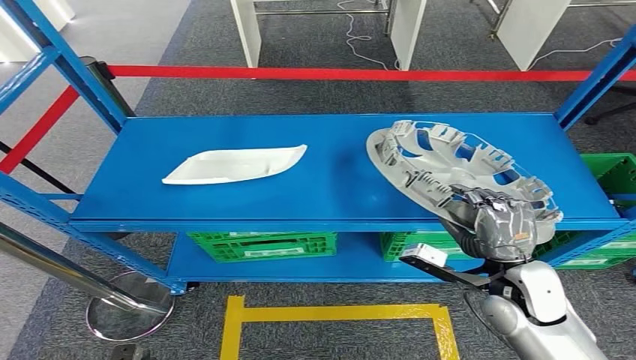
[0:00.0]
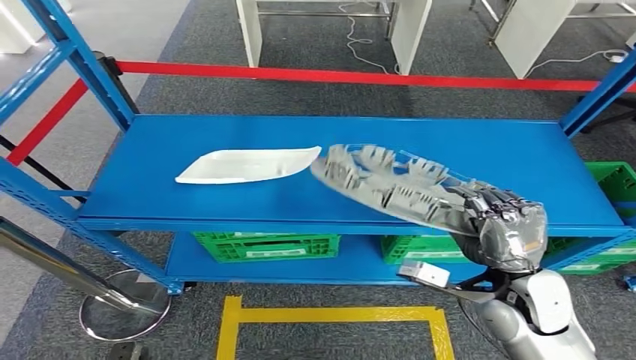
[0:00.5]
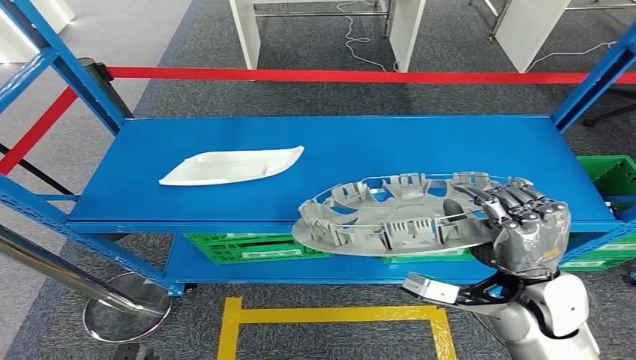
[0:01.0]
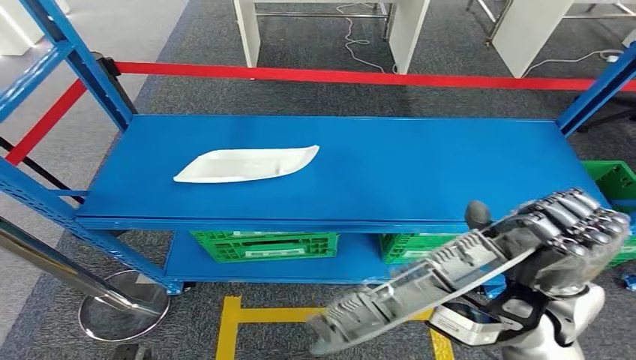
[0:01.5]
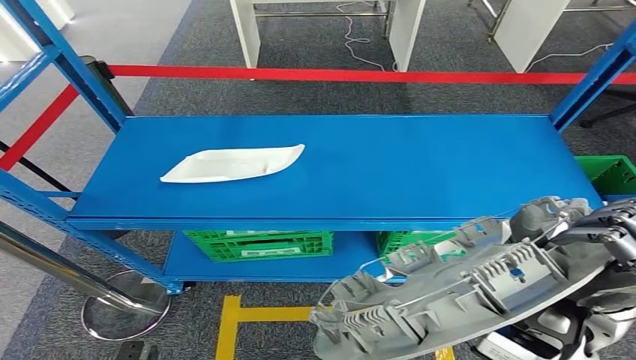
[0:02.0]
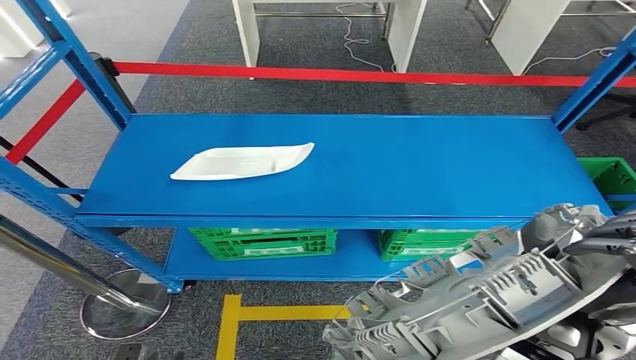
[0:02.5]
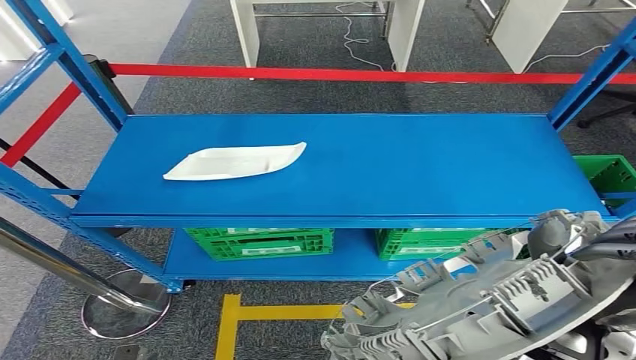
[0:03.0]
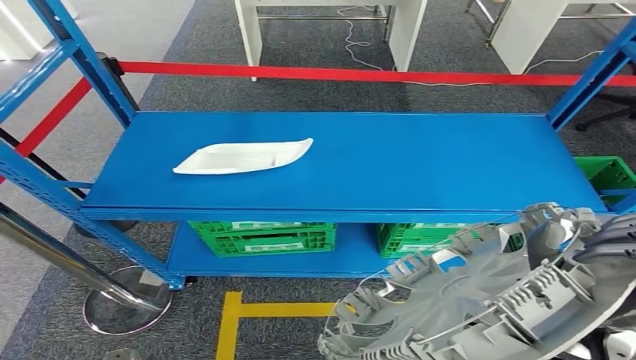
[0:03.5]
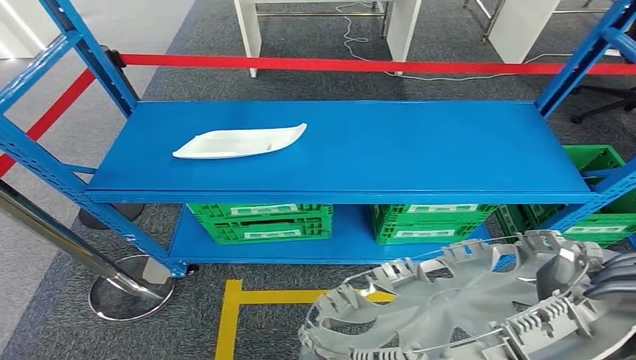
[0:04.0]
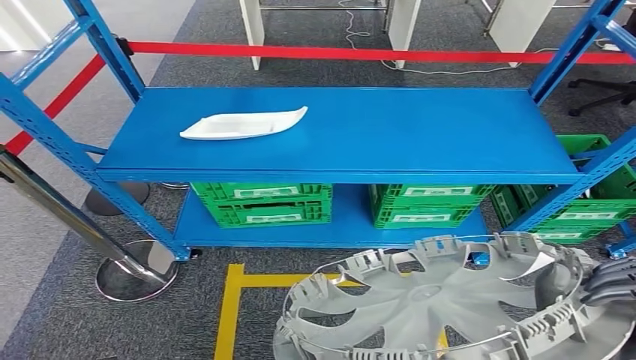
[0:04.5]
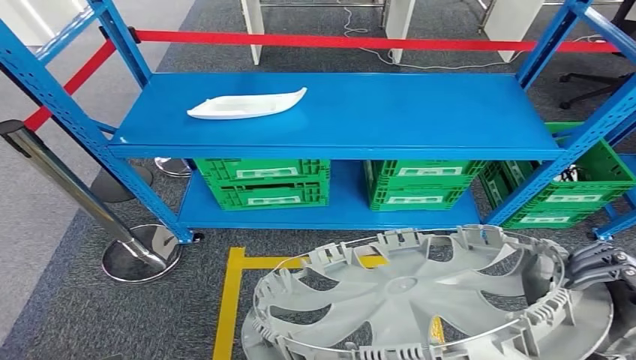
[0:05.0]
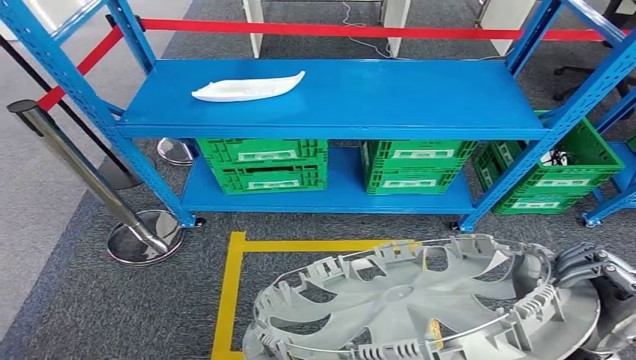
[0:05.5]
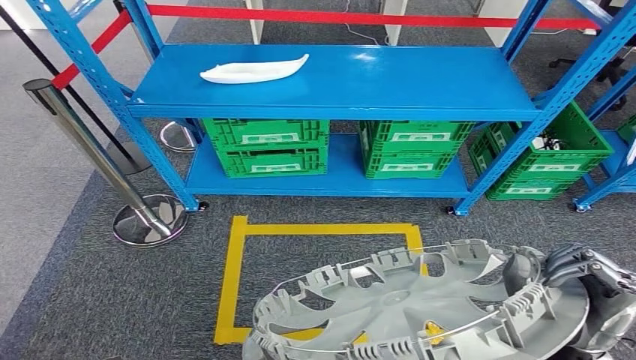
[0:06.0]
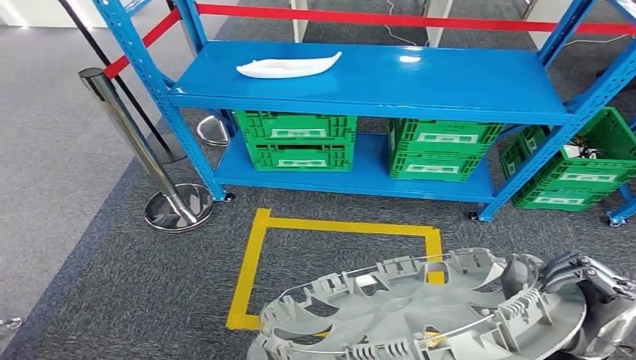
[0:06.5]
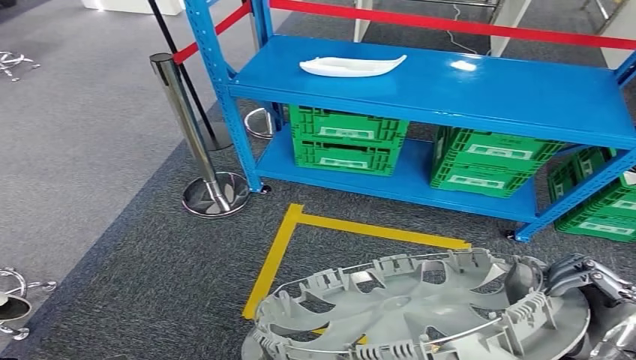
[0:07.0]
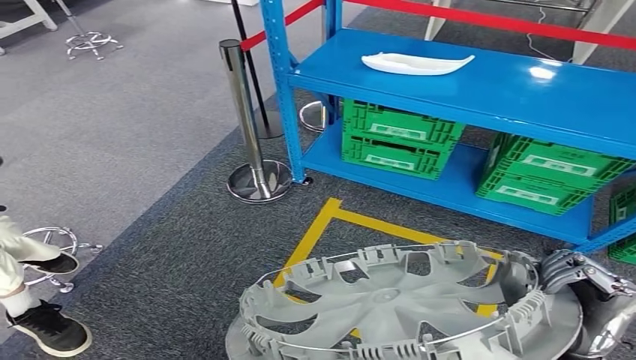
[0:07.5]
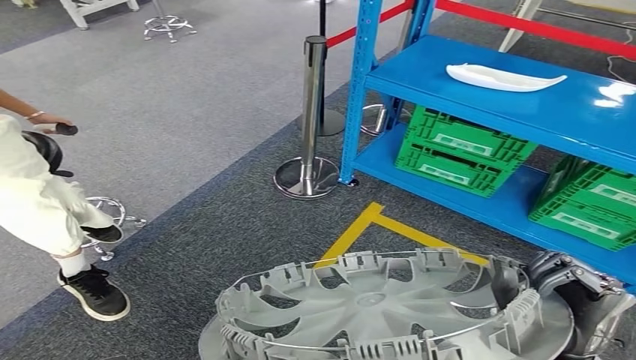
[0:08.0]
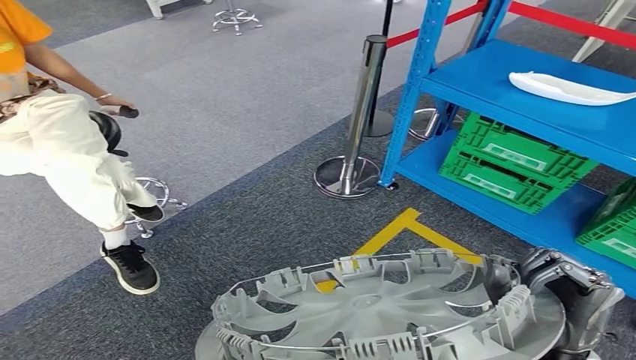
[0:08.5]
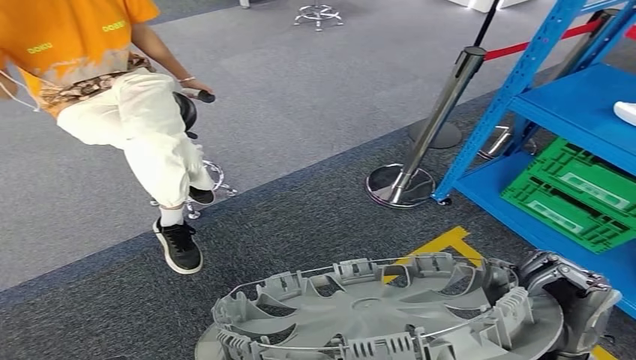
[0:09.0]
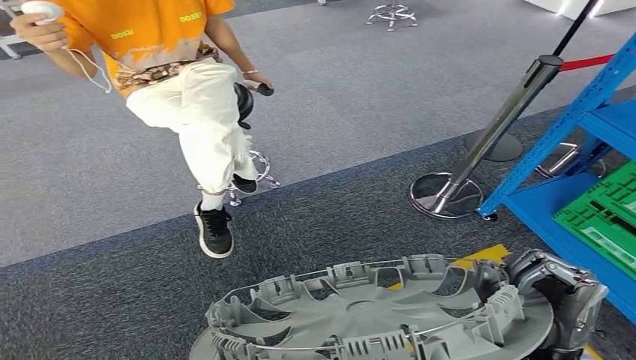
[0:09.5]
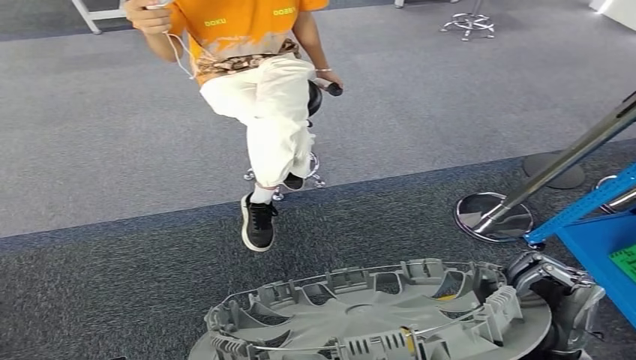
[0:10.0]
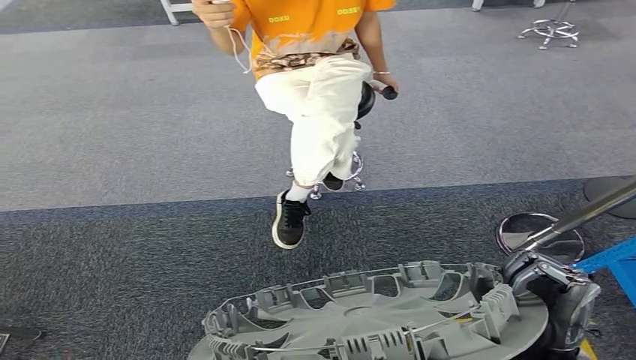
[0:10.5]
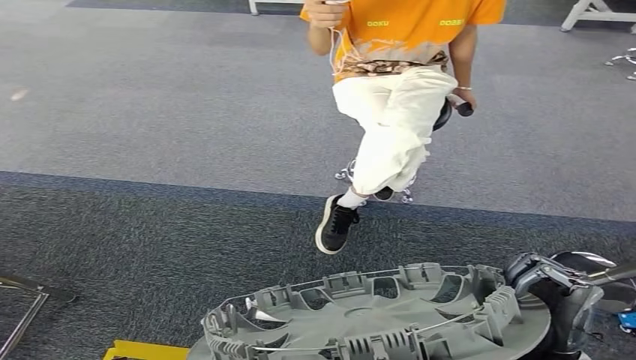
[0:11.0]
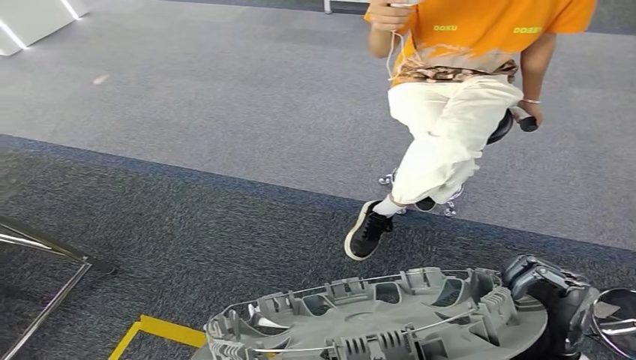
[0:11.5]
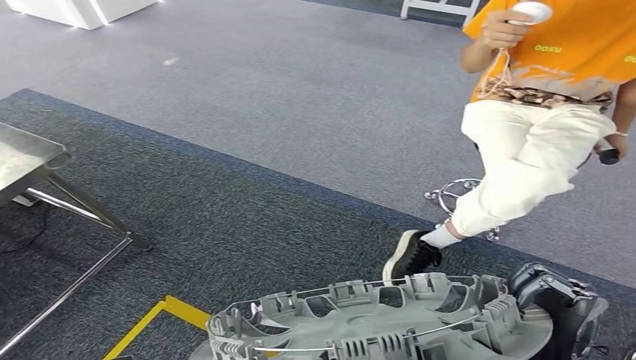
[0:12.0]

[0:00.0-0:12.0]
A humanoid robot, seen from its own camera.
Step, 0:00.0 to 0:02.0: Pick up the small component from the shelf.

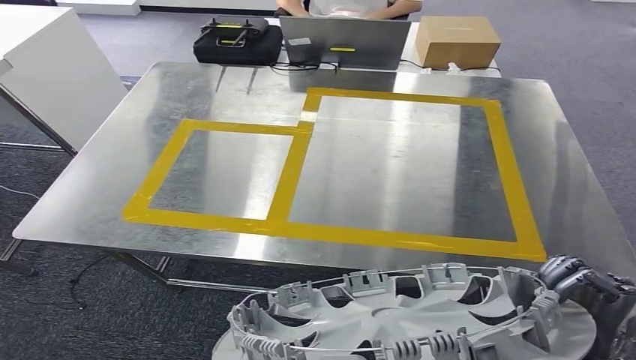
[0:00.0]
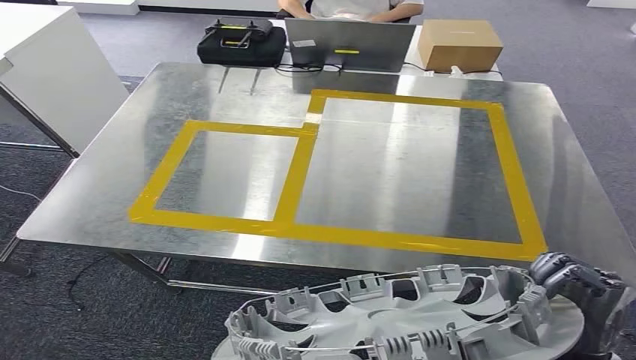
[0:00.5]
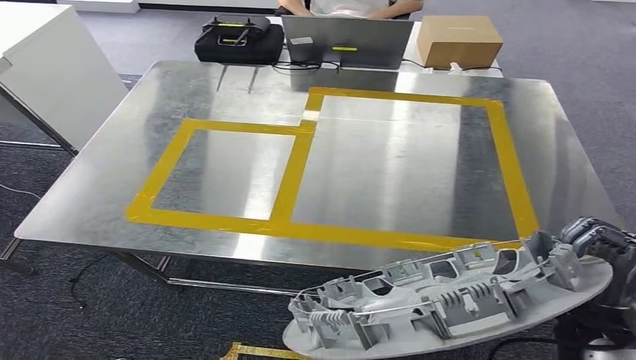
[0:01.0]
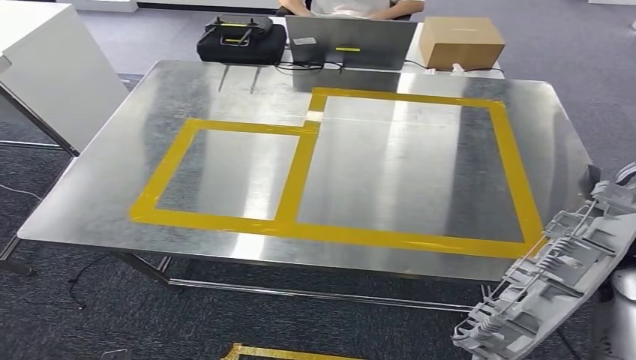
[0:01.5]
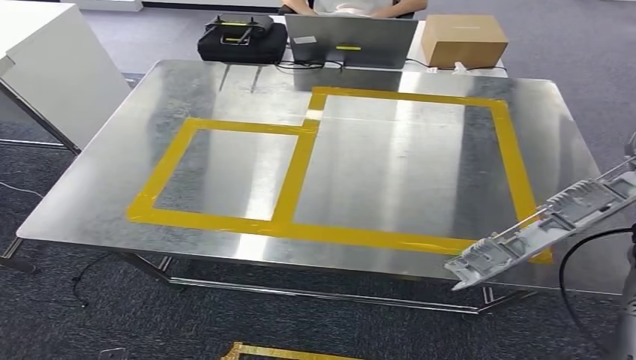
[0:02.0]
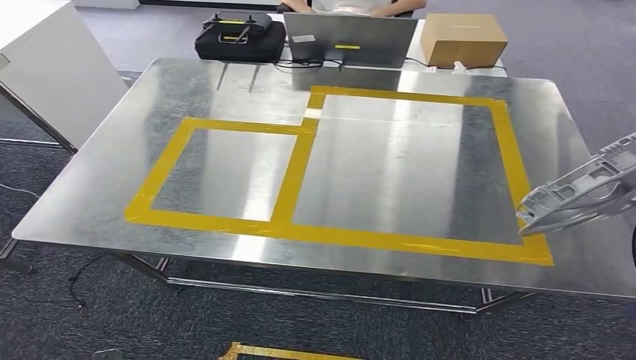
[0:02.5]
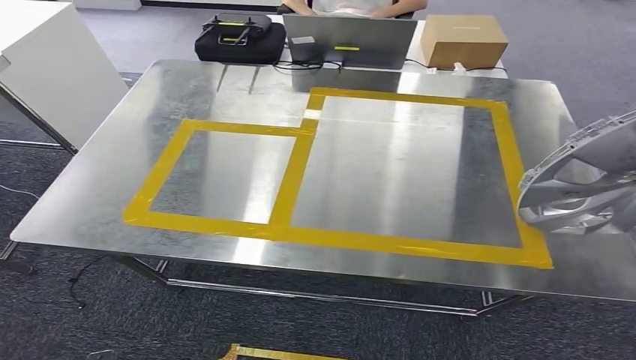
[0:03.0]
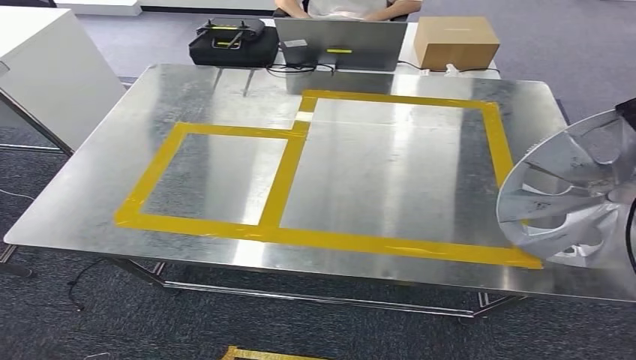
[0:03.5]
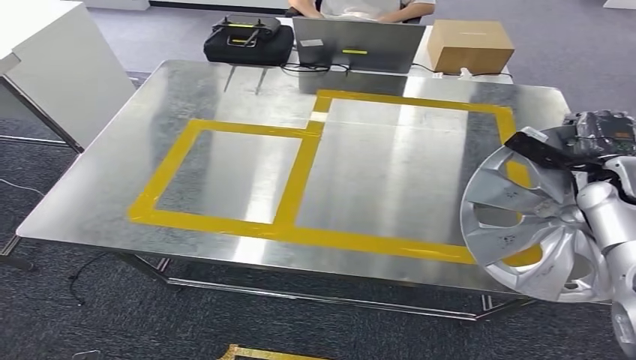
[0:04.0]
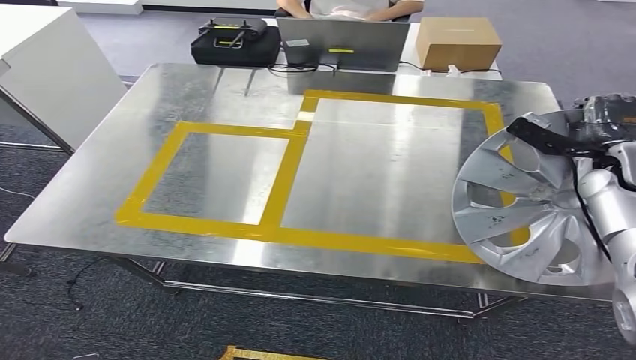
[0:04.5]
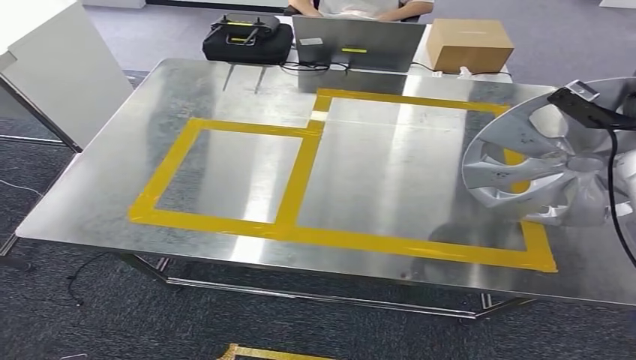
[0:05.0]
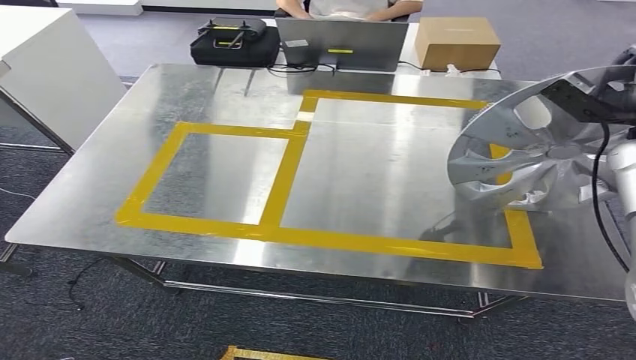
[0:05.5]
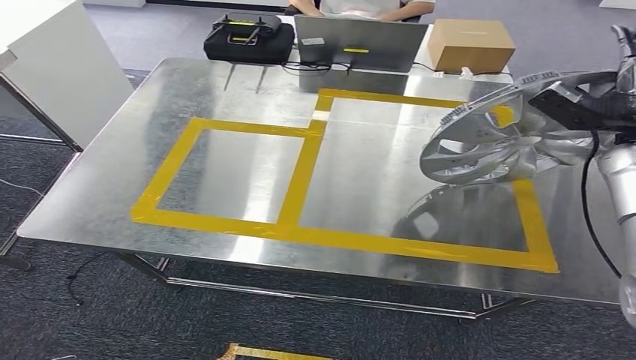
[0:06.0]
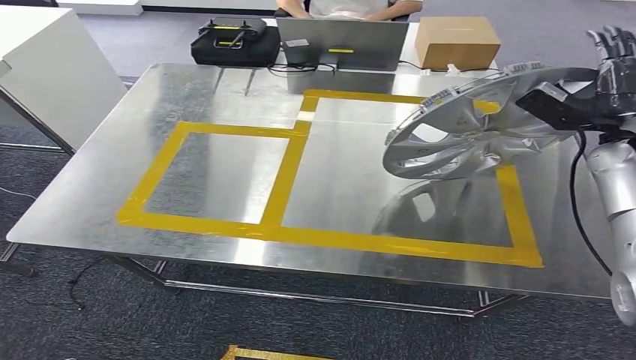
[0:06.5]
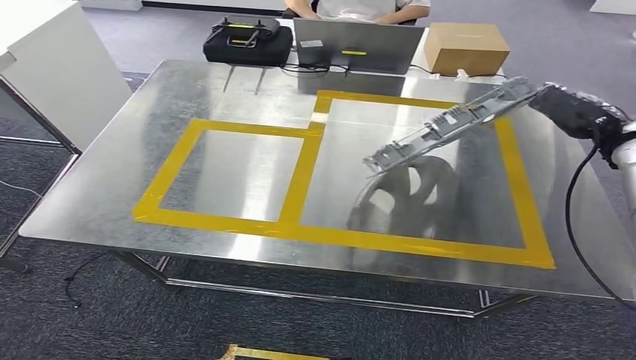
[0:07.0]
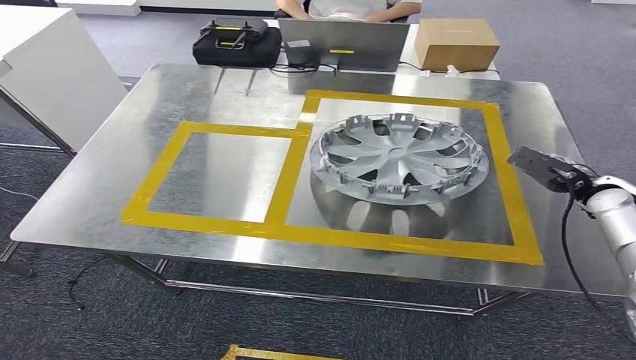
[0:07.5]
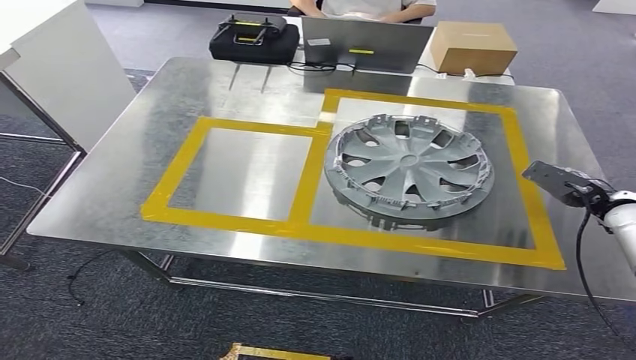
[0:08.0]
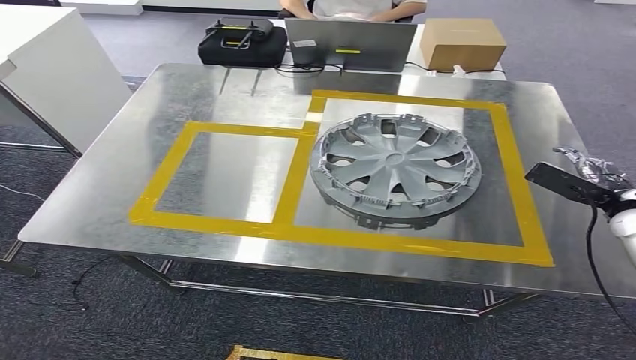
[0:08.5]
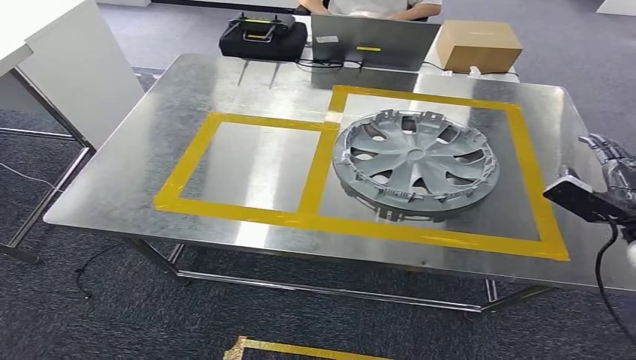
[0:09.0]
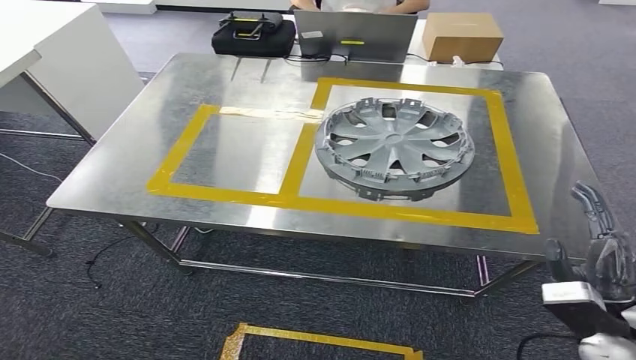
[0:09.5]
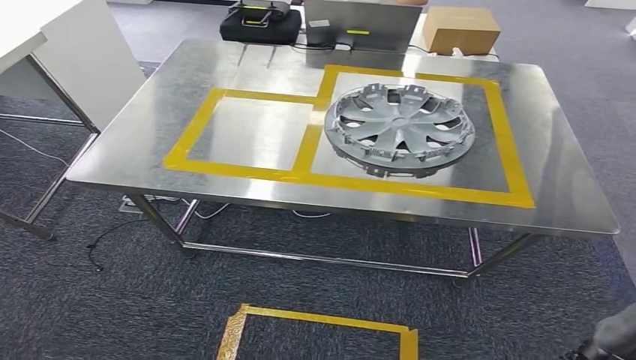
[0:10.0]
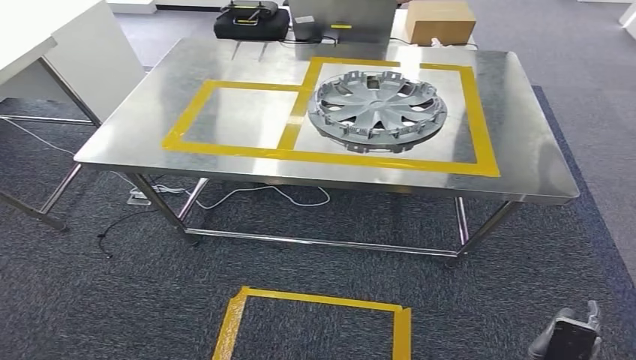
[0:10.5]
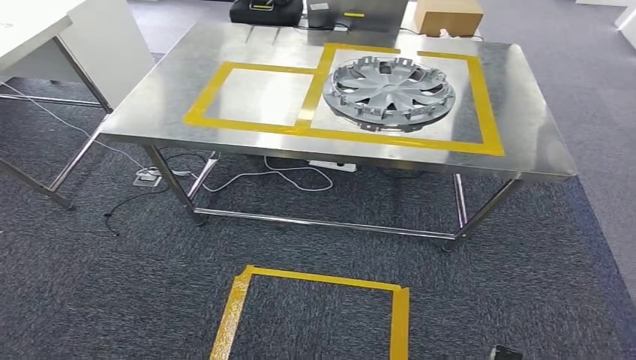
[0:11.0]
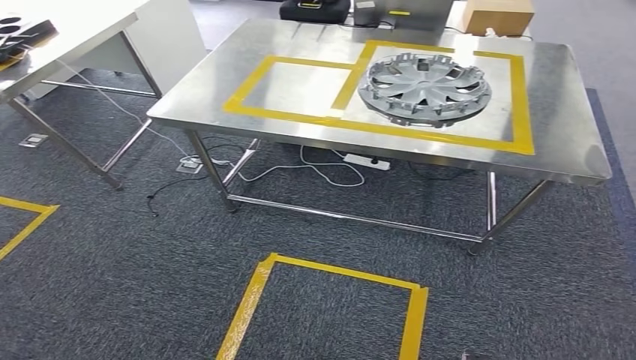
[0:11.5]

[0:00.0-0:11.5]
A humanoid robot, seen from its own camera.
Step, 0:00.0 to 0:10.5: Insert the small component into the corresponding slot on the workbench.
0:04.0 to 0:06.0: The right hand goes about 10 cm upward.
